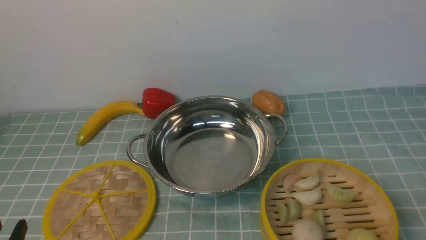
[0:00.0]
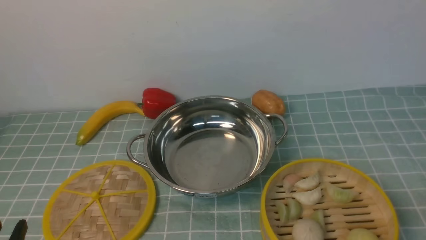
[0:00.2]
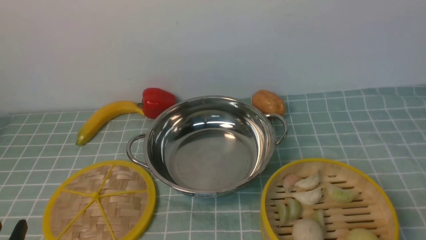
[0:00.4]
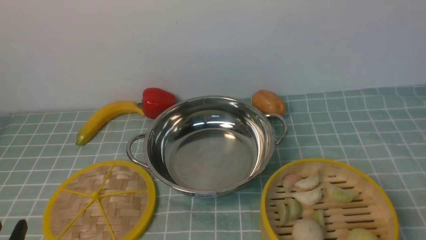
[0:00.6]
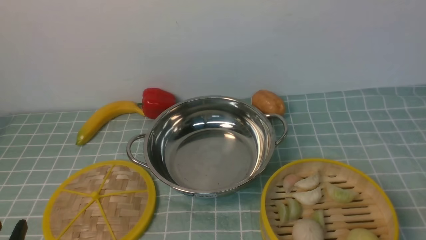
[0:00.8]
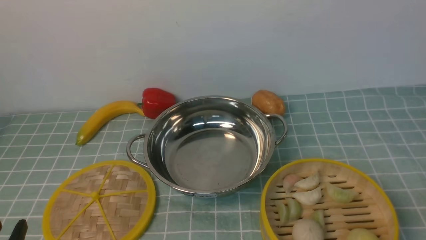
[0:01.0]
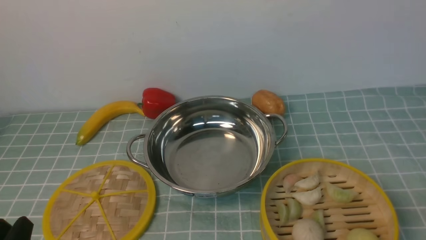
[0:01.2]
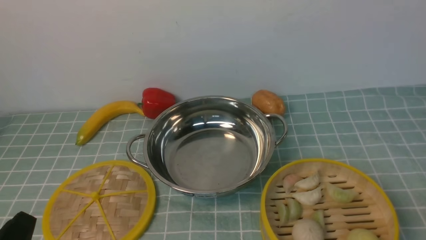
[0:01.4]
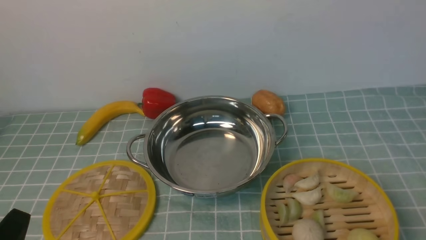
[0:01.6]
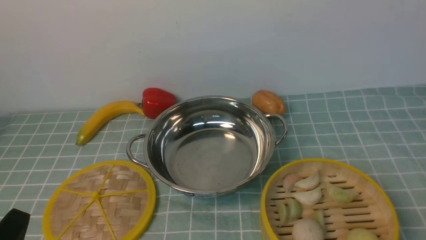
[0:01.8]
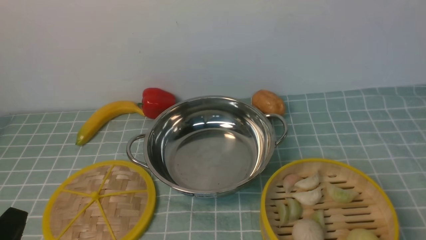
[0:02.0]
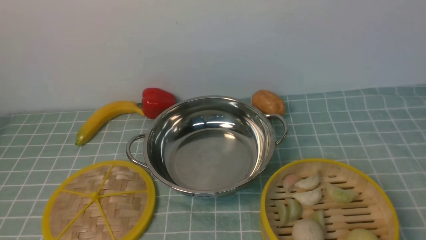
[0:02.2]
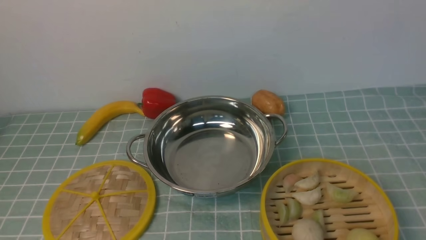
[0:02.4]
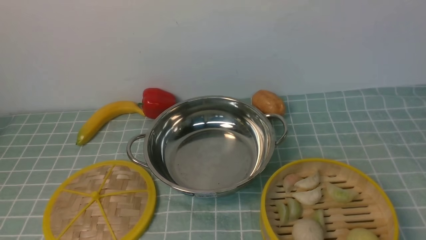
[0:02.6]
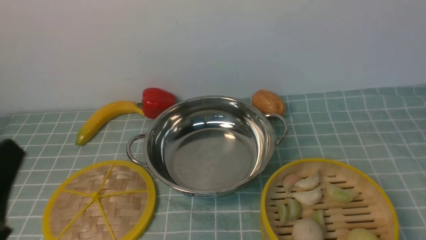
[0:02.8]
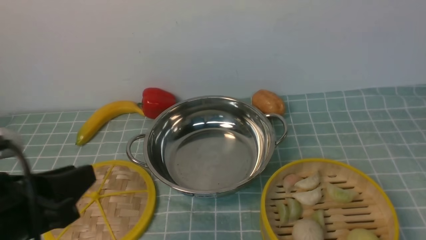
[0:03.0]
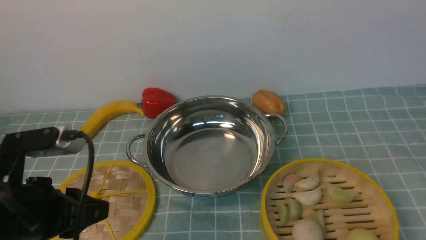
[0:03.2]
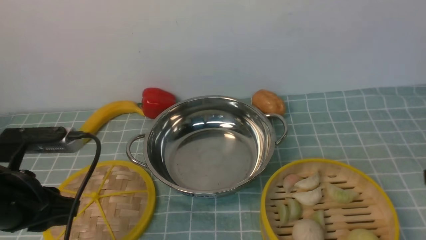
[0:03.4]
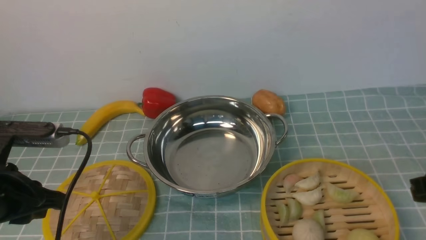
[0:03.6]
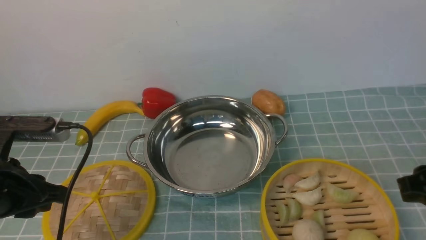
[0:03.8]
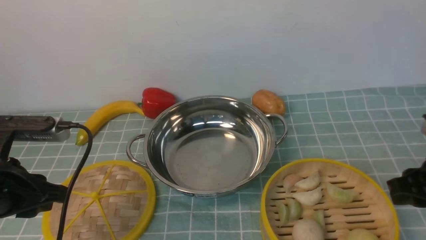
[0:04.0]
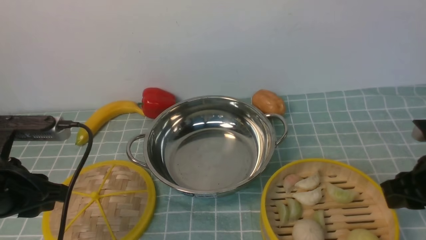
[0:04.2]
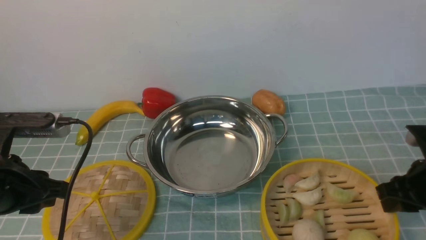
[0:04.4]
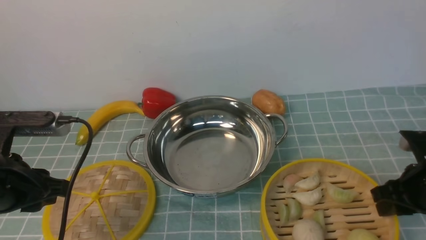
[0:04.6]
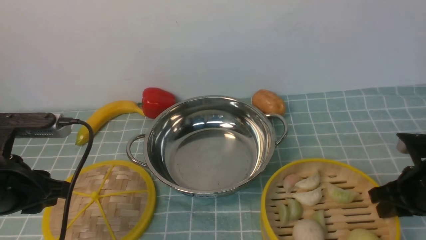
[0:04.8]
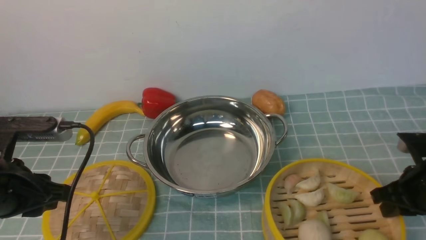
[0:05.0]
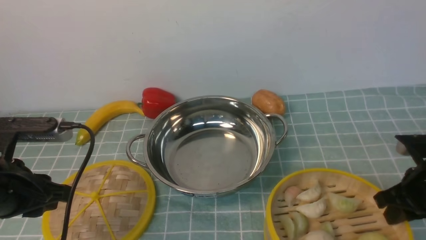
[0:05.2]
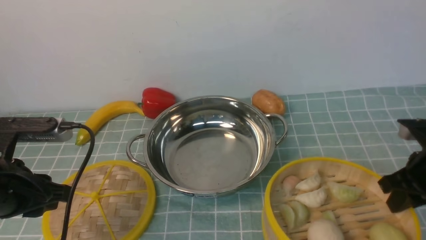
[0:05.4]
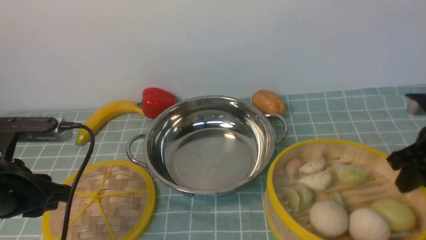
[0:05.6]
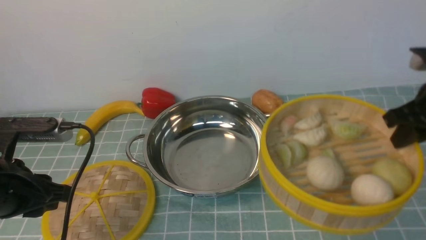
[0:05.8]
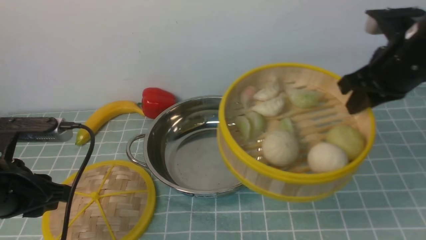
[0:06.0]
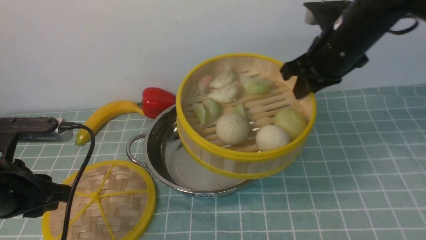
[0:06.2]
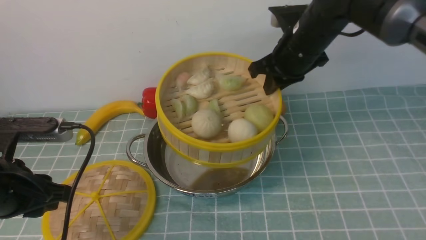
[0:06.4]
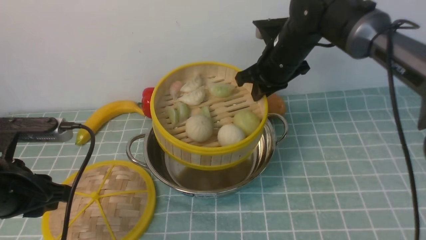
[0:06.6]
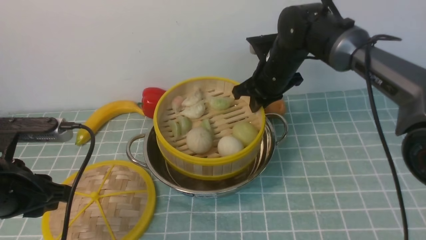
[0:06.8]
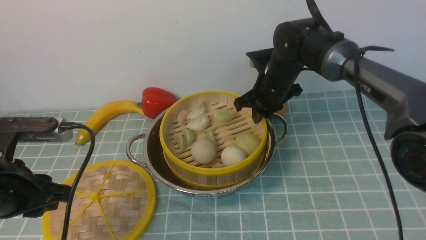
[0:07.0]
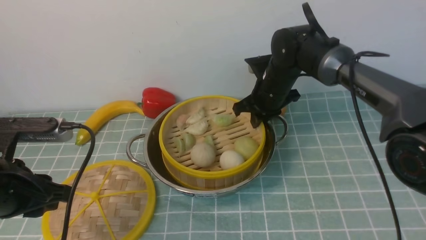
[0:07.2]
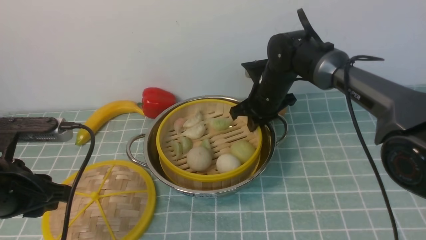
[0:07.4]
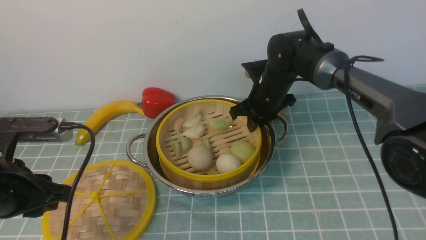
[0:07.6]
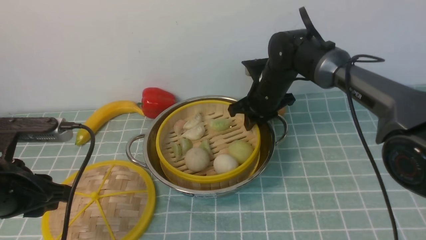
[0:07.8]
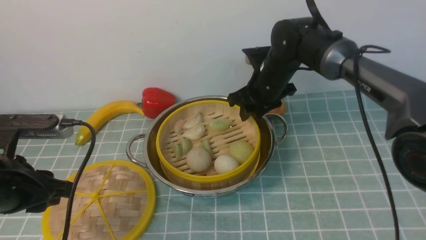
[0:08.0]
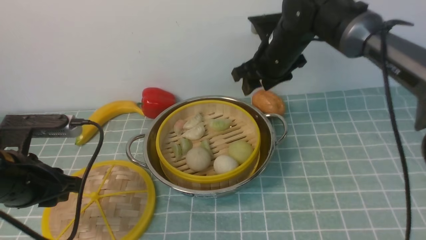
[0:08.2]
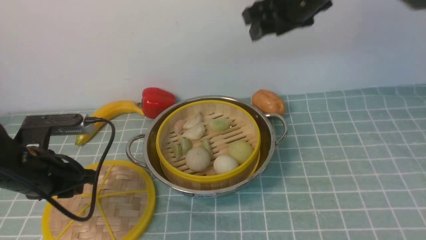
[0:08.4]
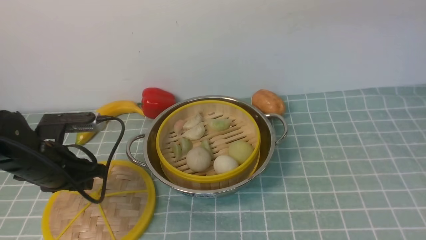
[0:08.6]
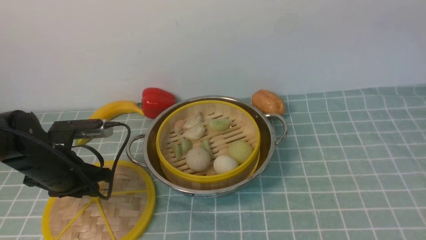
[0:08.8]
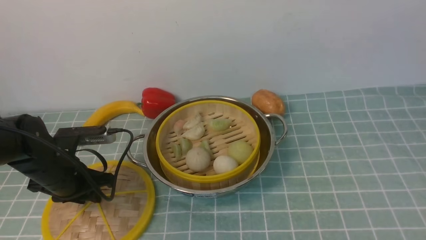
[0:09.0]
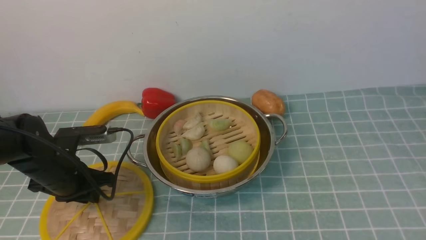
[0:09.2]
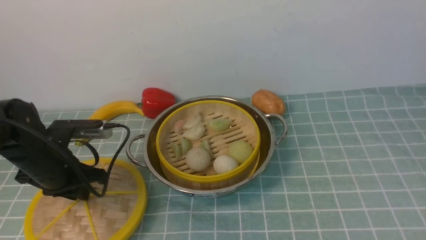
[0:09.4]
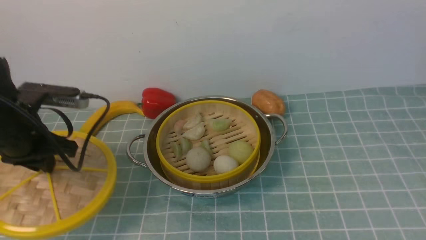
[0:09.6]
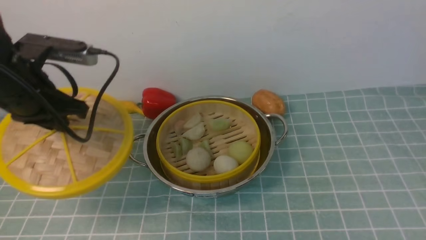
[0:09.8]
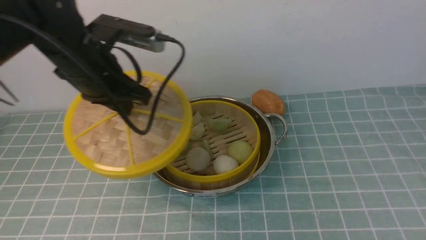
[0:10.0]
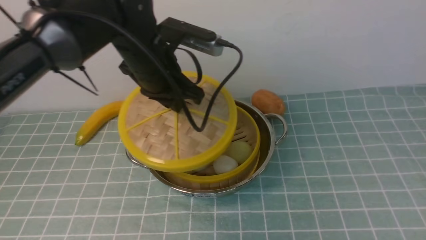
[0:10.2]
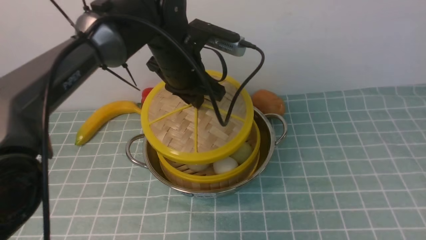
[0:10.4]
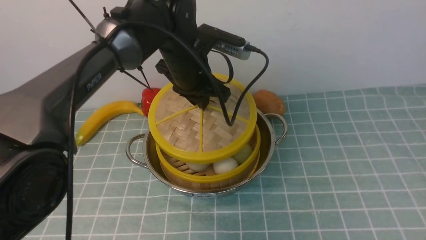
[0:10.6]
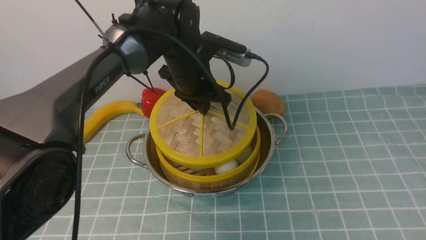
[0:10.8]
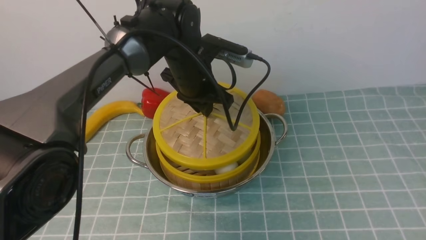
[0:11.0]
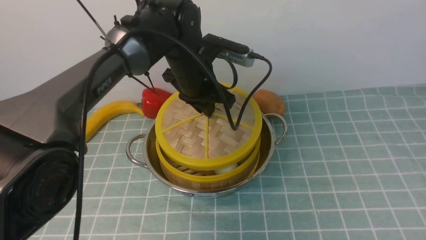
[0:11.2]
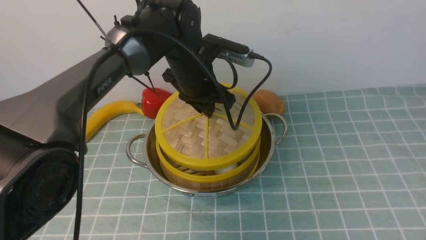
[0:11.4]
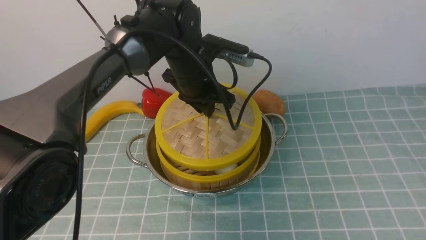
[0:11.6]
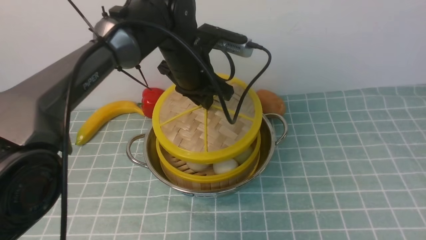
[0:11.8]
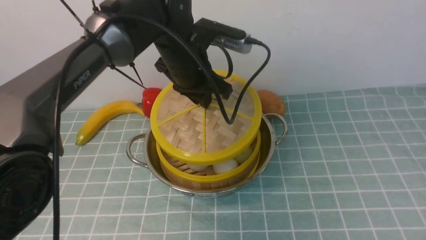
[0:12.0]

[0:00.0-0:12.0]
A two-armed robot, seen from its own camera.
Task of the whole recording: place the steamer in the pot on the blue tablecloth, and put the lid on the steamer.
Step, 0.0 to 5.6 s: use the right arm to lift the steamer closest to it.
Step, 6.0 to 8.2 s: use the right arm to put the steamer into the iron steamer pot in the middle.
Step, 8.4 to 9.8 s: use the left arm to lift the lid of the steamer.
1.6 to 3.0 s: The left gripper shifts some 10 cm upward.
3.0 to 4.4 s: The right gripper goes roughly 20 cm downward and forward. The left gripper shifts about 10 cm forward.
4.4 to 6.0 s: The right gripper is displaced upward and forward by roughly 15 cm, and closes.
6.0 to 7.6 s: The right gripper is displaced to the left, forward and downward by approximately 25 cm.
7.6 to 9.0 s: The right gripper heads upward and backward, covering approximately 50 cm, and opens up. Meanwhile the left gripper heads forward and downward, covering approximately 15 cm.
9.0 to 10.4 s: The right gripper travels backward and to the right by some 10 cm. Meanwhile the left gripper moves to the right, upward and forward, some 25 cm.
10.4 to 12.0 s: The grippers make only small movements.

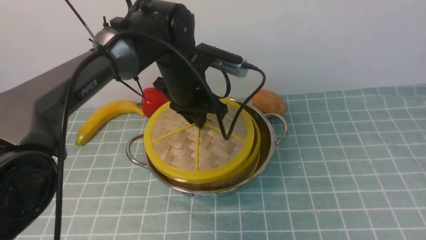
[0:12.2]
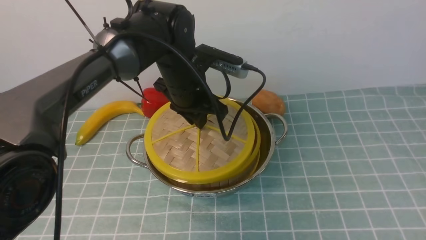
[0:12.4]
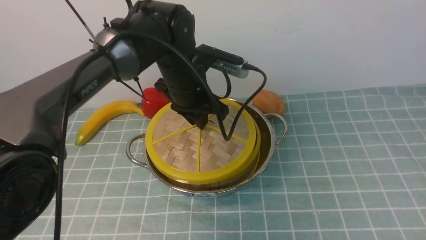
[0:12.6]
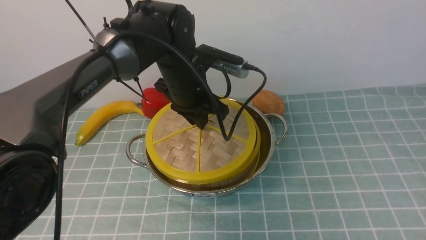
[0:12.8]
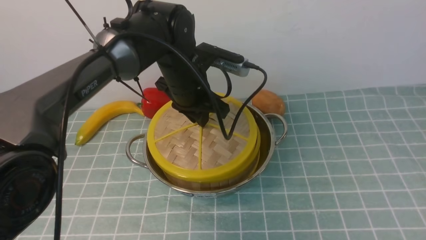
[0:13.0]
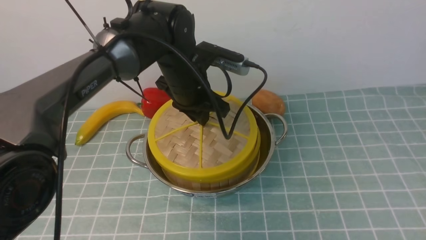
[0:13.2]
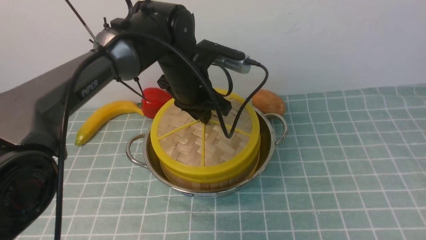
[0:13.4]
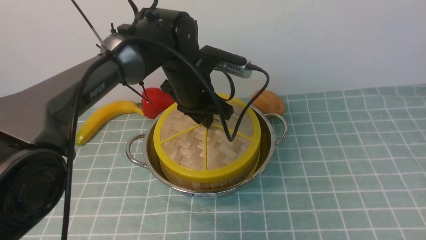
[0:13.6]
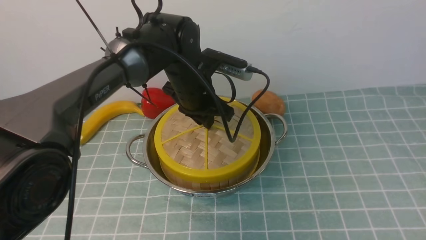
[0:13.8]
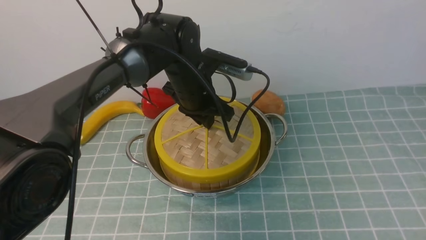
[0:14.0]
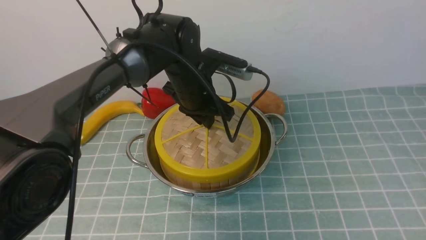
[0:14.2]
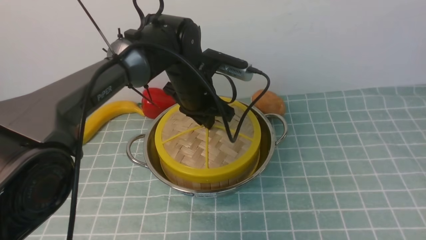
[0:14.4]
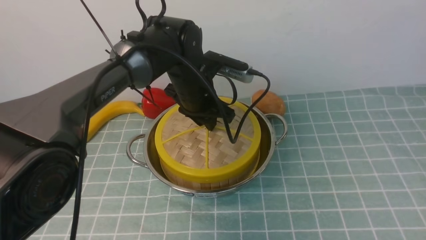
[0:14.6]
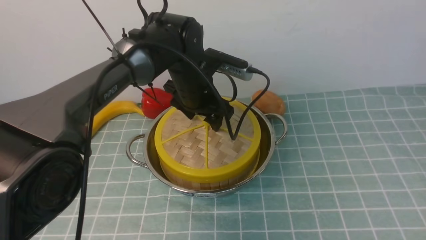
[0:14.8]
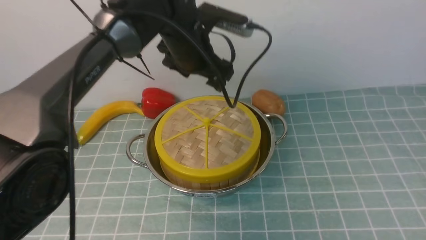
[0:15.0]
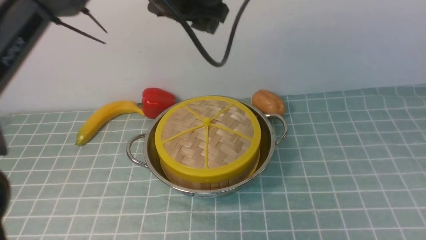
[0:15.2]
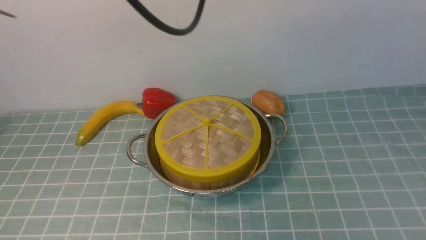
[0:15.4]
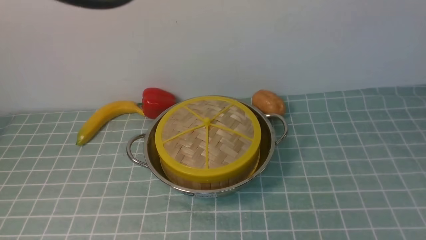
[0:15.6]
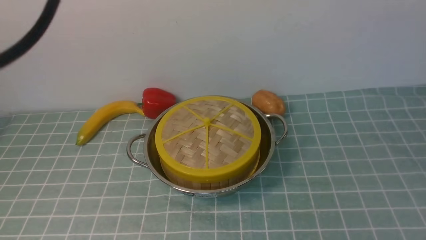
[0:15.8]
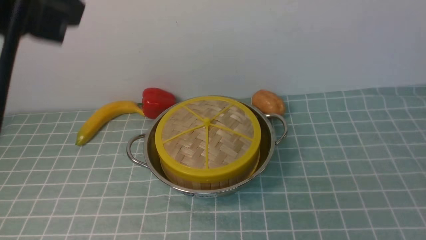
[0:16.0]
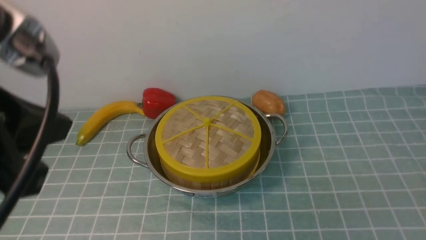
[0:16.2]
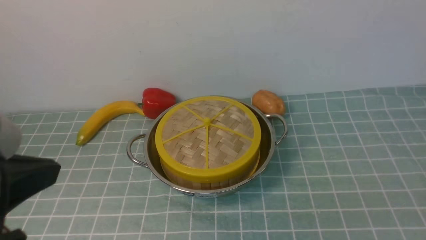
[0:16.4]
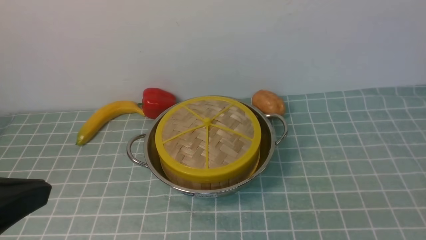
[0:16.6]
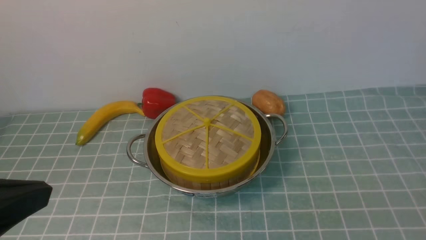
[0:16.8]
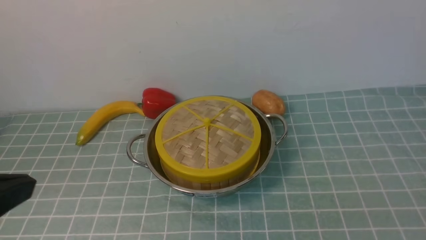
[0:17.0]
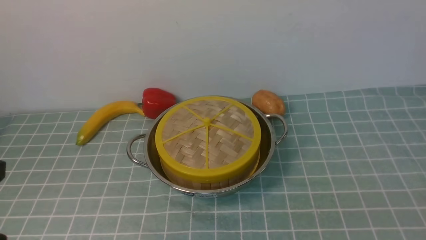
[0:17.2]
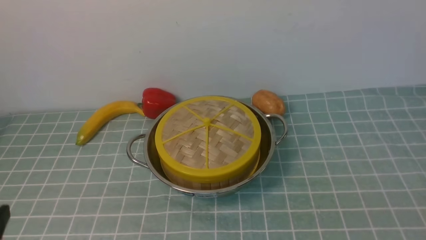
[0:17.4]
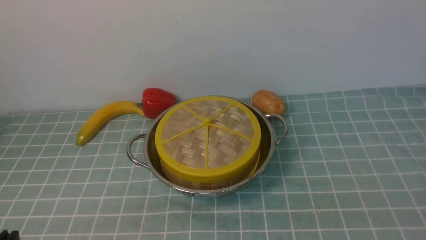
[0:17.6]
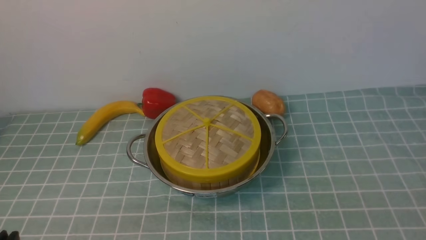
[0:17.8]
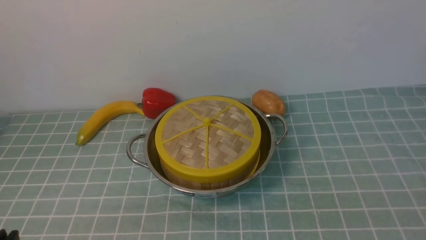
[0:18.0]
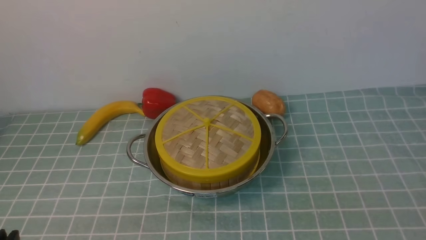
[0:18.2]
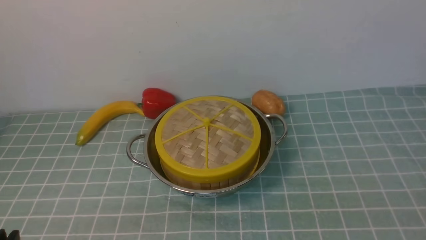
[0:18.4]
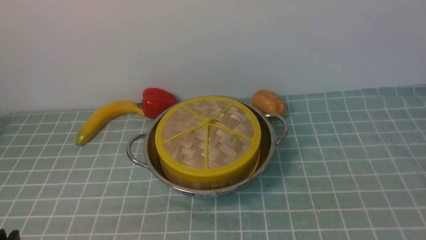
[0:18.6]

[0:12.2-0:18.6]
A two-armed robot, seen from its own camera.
Task of the whole recording: place the steamer in the pot on the blue tablecloth, and put the lid on the steamer.
Step, 12.2 to 15.2 s: use the left arm to place the steamer lid on the steamer.
12.2 to 13.8 s: The grippers make only small movements.
13.8 to 15.4 s: The left gripper heads upward, covering roughly 20 cm, and opens, then closes again.
15.4 to 17.0 s: The right gripper travels downward by about 20 cm, and closes up. Meanwhile the left gripper heads backward and to the left, covering about 30 cm, and closes up.
17.0 to 18.6 s: The left gripper moves downward, about 20 cm.
